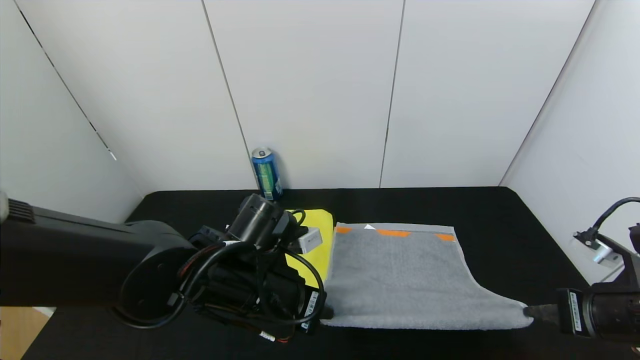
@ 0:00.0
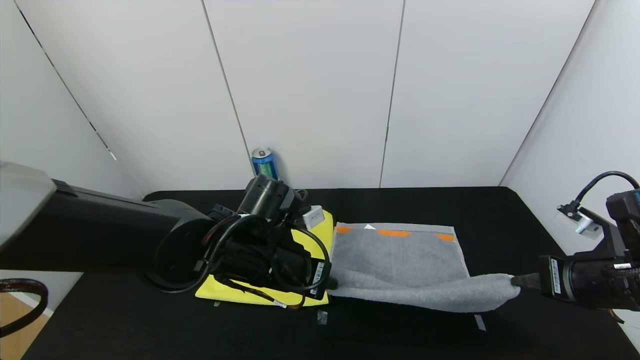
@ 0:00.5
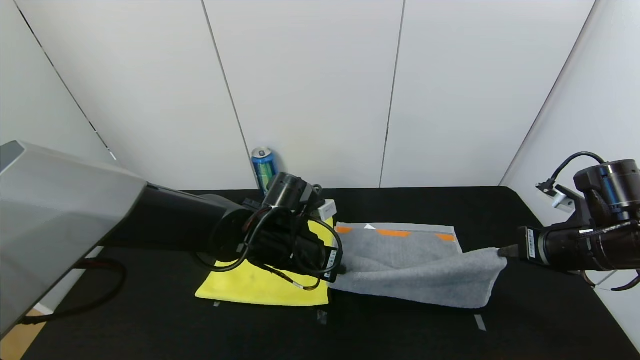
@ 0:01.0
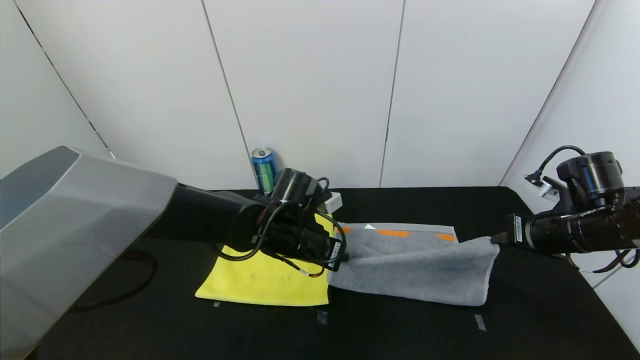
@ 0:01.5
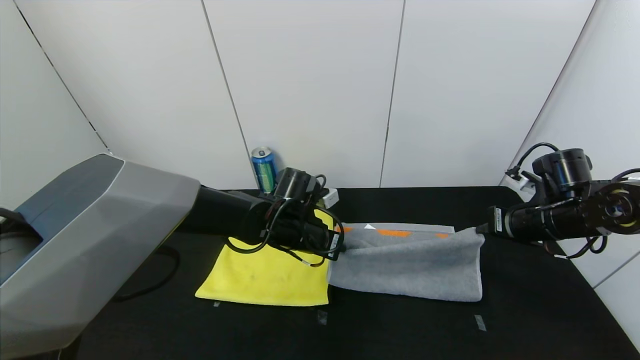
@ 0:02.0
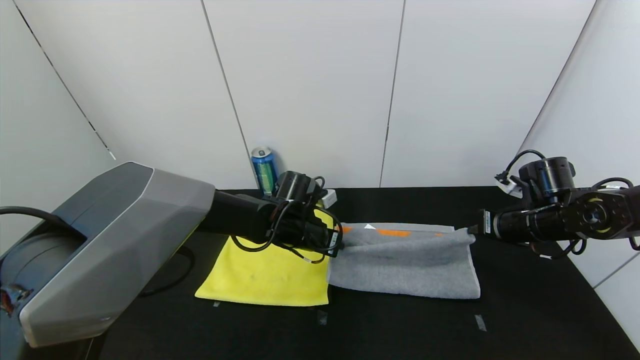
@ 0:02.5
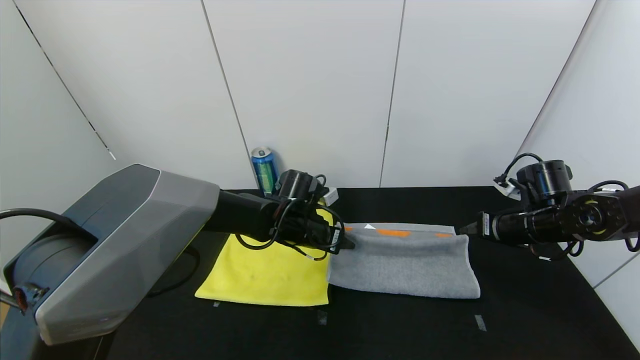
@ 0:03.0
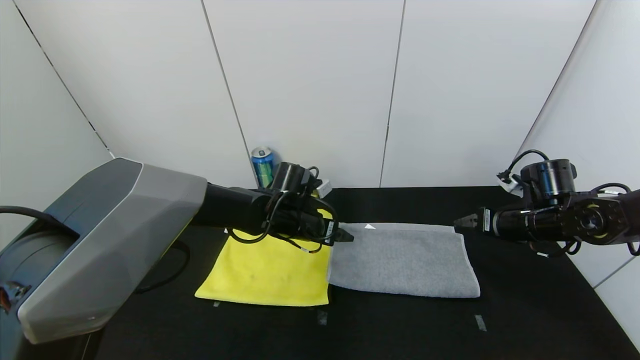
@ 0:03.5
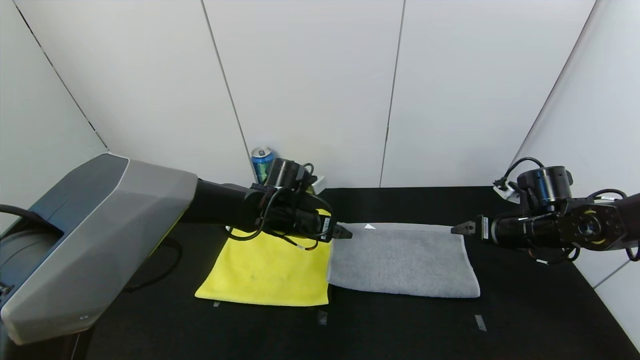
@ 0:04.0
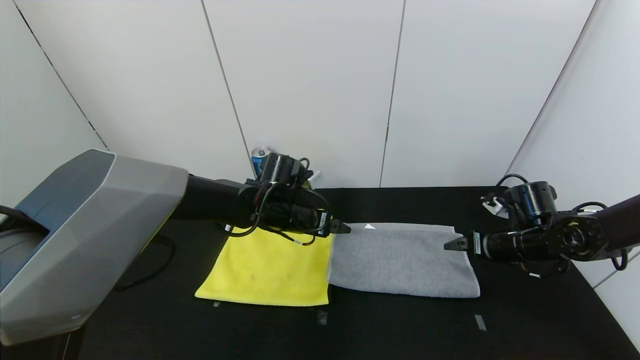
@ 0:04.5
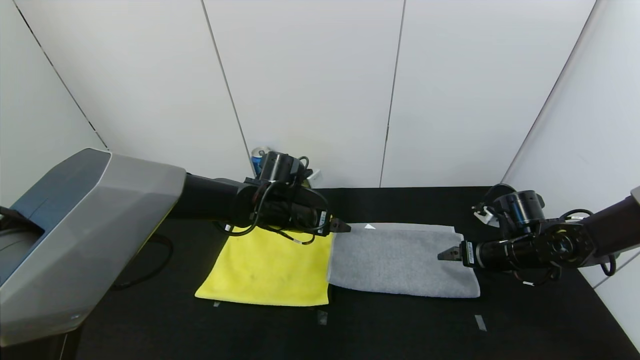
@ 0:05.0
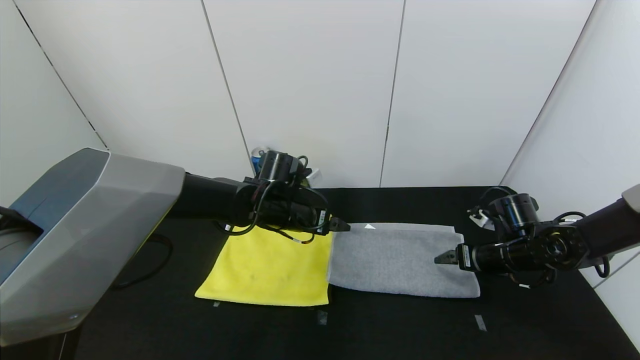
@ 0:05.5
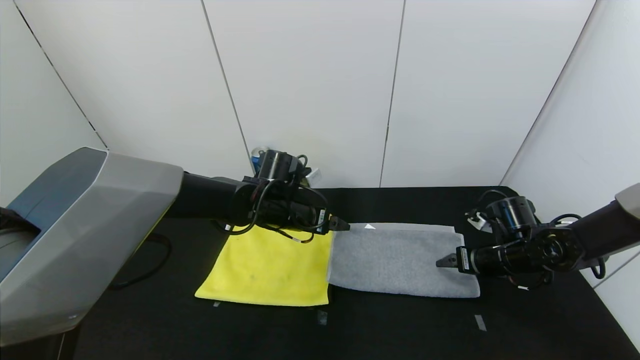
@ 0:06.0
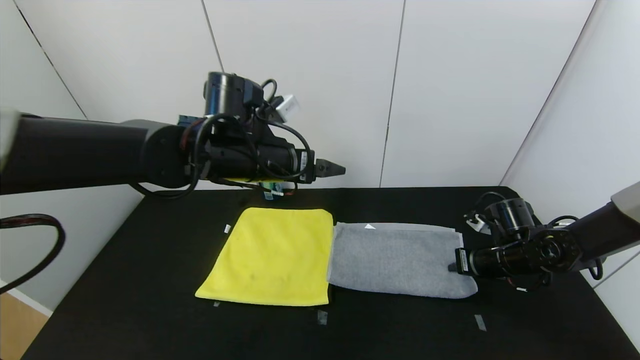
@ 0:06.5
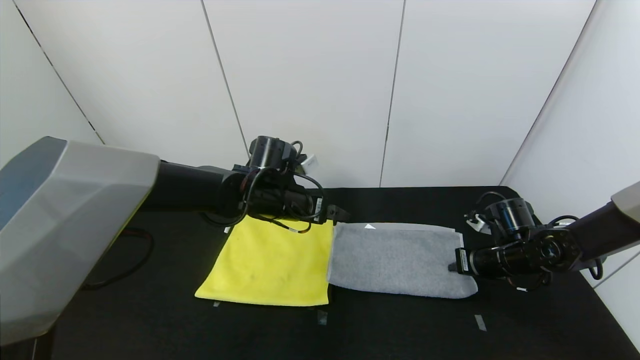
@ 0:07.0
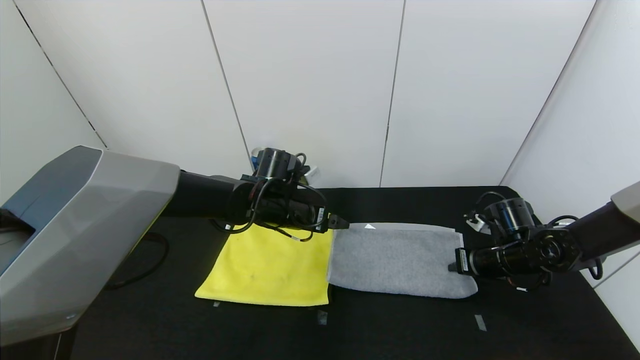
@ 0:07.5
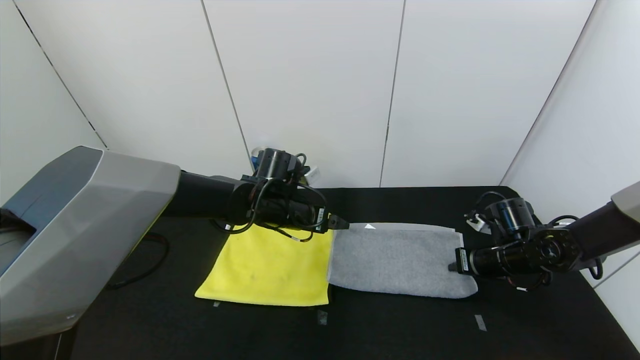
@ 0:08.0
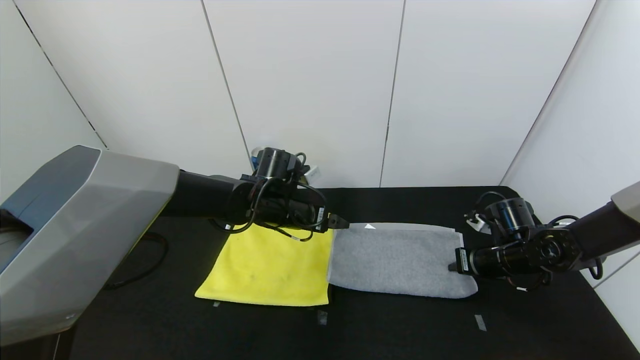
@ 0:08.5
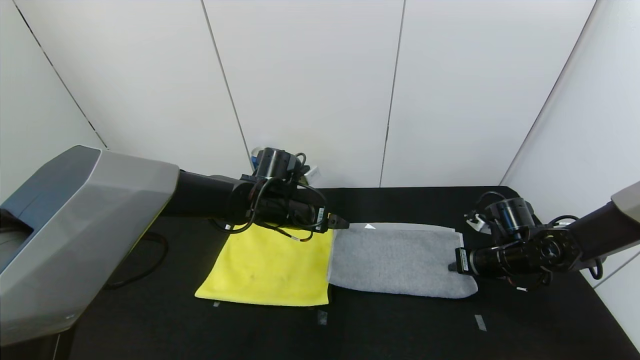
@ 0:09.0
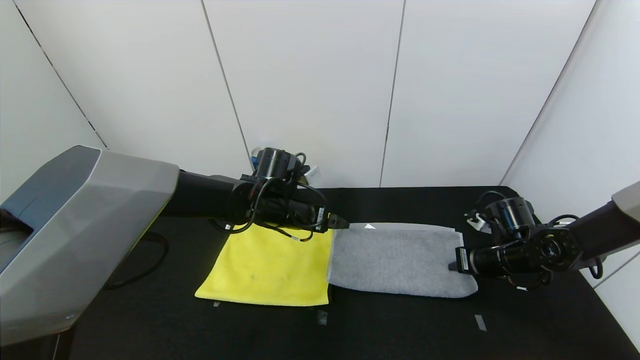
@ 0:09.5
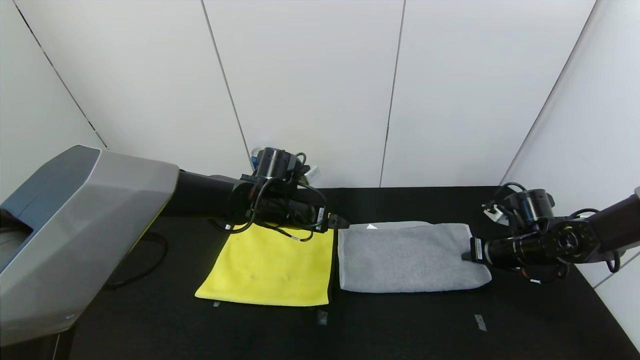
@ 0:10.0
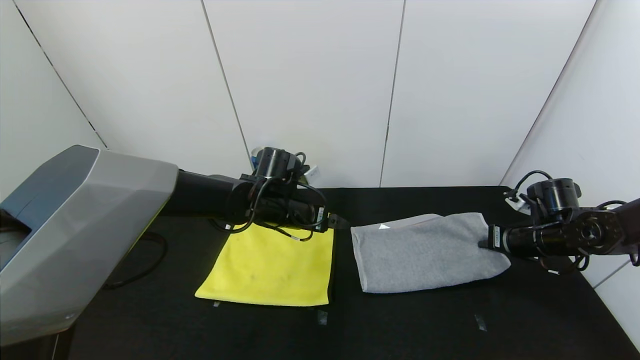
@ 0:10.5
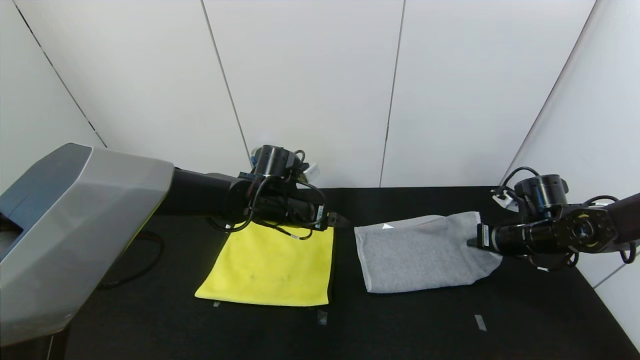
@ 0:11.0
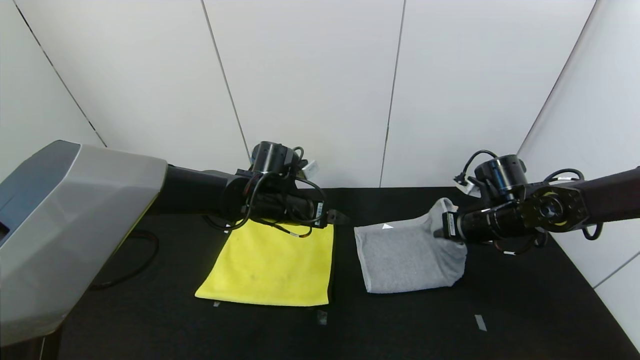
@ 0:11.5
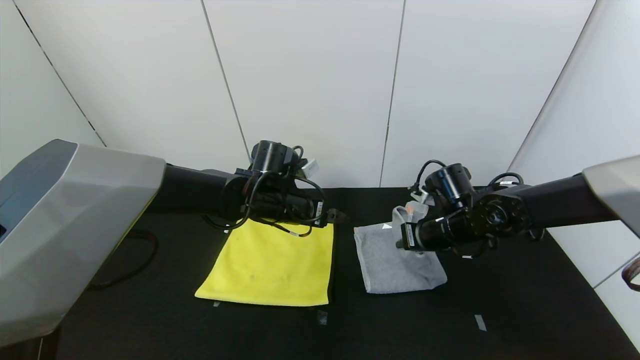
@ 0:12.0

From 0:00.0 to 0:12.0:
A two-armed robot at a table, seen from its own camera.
Task of the whole recording: Use the gripper to fold the yellow towel and grey towel in half twice,then put the yellow towel on the grey towel.
Step, from 0:00.0 to 0:03.0: Fold the gray towel upwards with the left gripper.
Step, from 0:00.0 to 0:03.0: Fold the gray towel upwards with the right gripper.
From 0:00.0 to 0:02.0: Both grippers travel together forward, roughly 15 cm.
From 0:02.0 to 0:04.0: The left gripper opens its fingers, while the right gripper opens up.
From 0:04.0 to 0:06.0: The right gripper moves downward, roughly 5 cm.
From 0:06.0 to 0:08.0: The right gripper closes; the left gripper reaches some 10 cm upward, then returns.
From 0:08.0 to 0:10.0: The grippers make only small movements.
From 0:10.0 to 0:12.0: The right gripper heads to the left, covering some 15 cm.

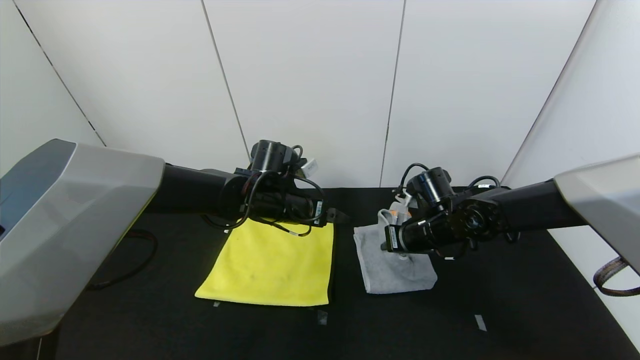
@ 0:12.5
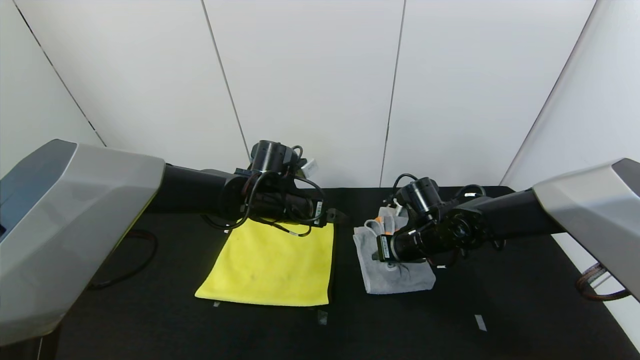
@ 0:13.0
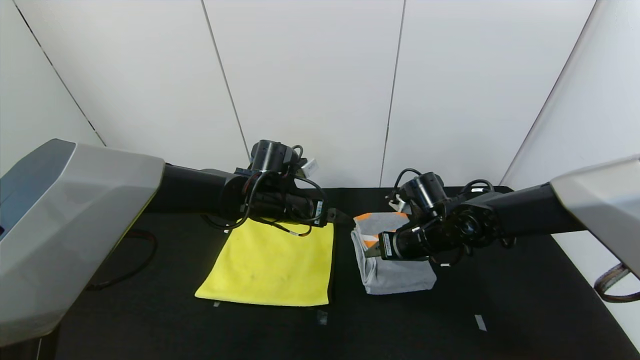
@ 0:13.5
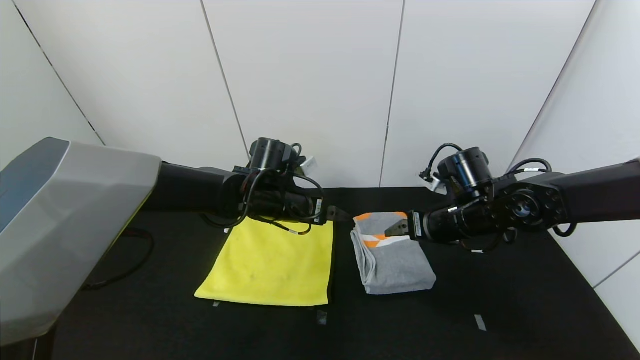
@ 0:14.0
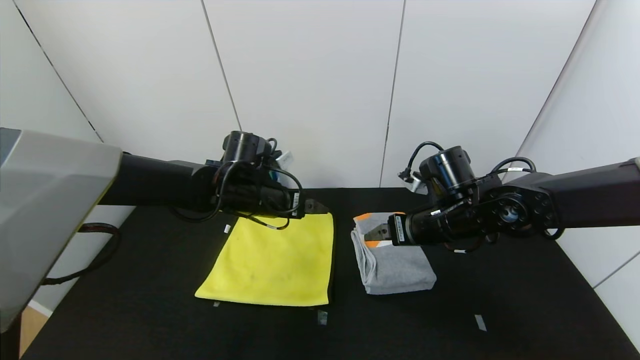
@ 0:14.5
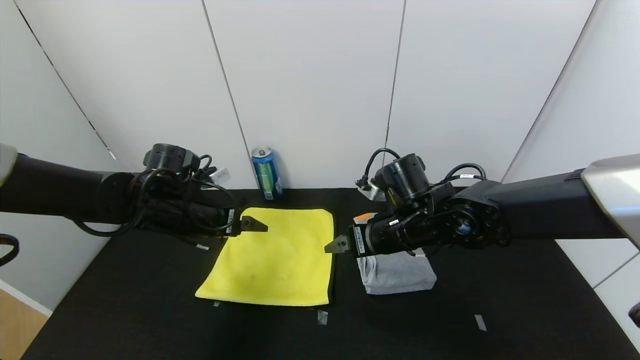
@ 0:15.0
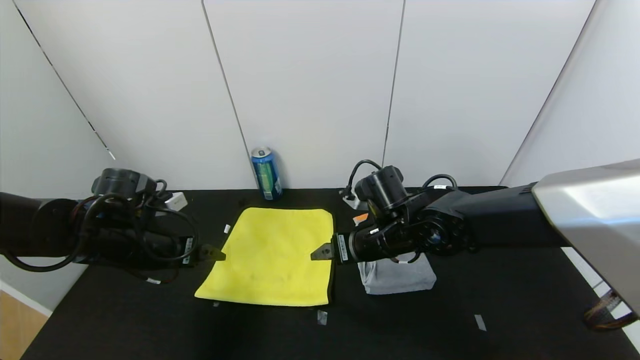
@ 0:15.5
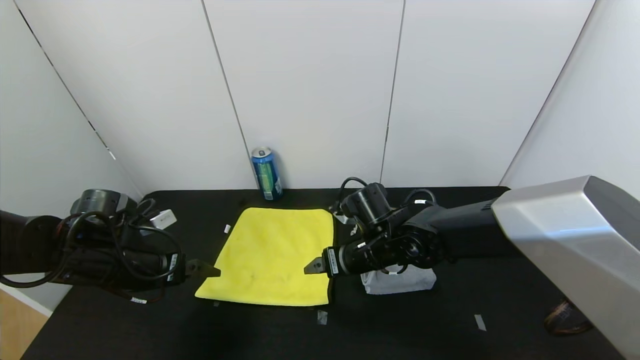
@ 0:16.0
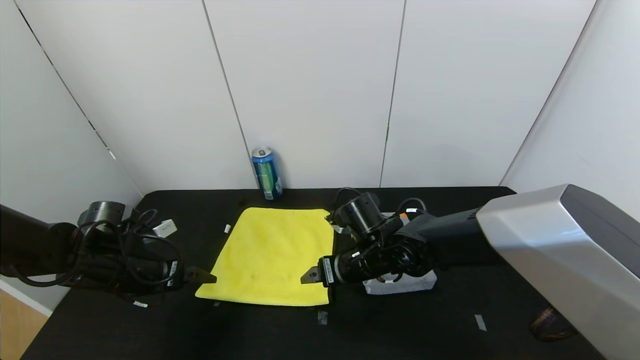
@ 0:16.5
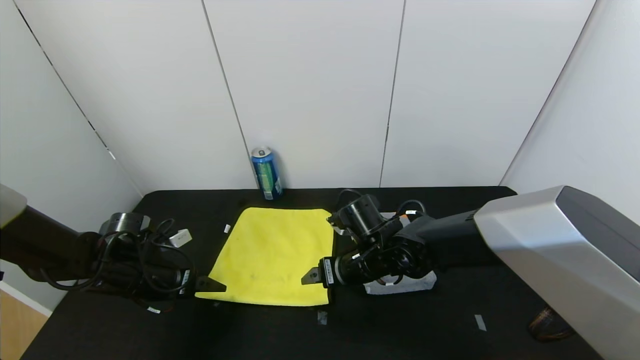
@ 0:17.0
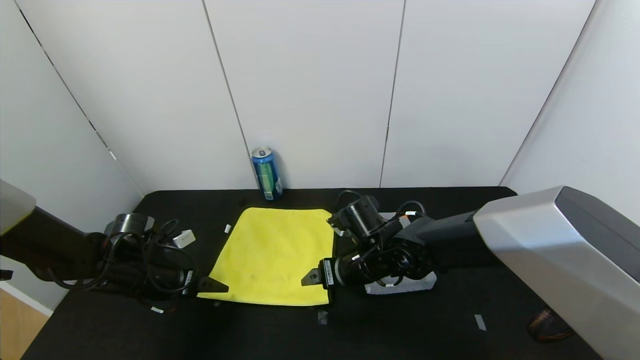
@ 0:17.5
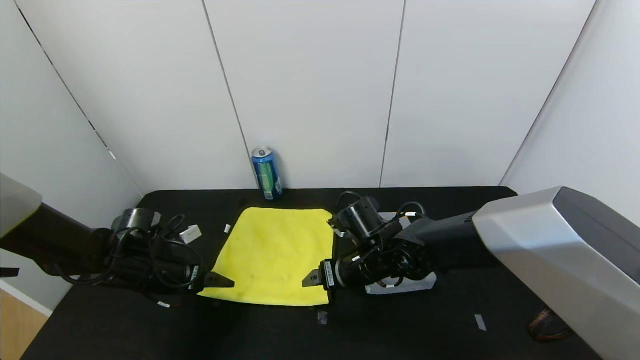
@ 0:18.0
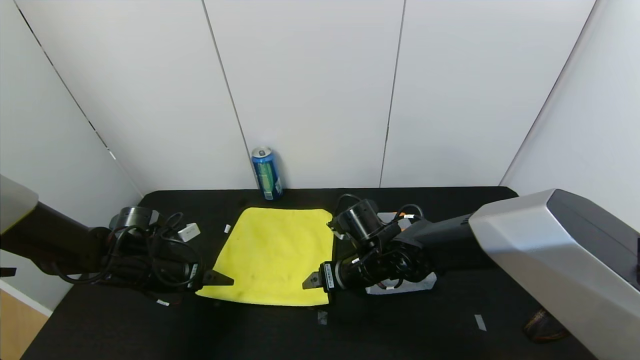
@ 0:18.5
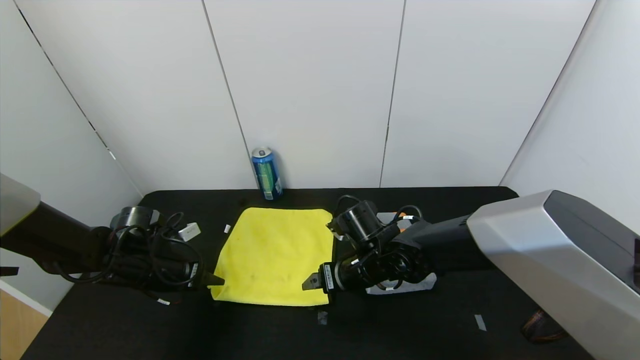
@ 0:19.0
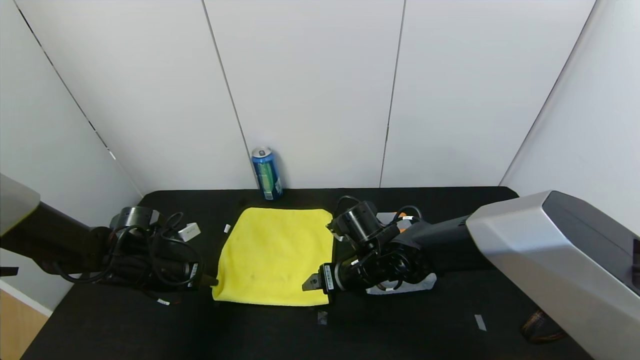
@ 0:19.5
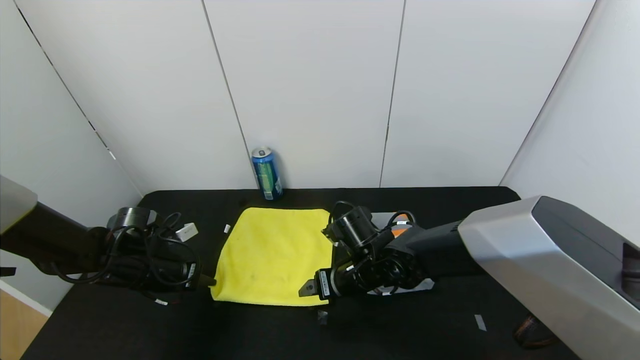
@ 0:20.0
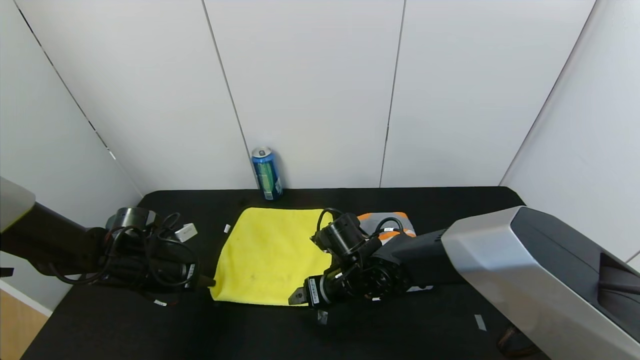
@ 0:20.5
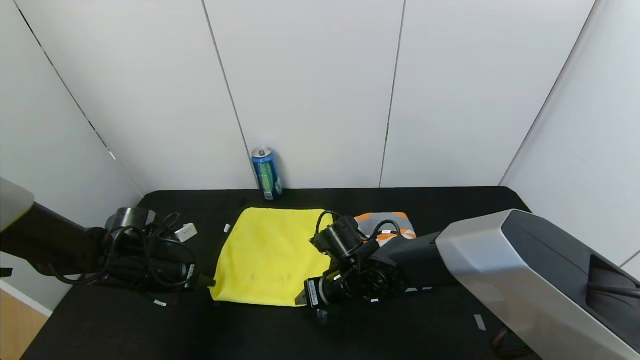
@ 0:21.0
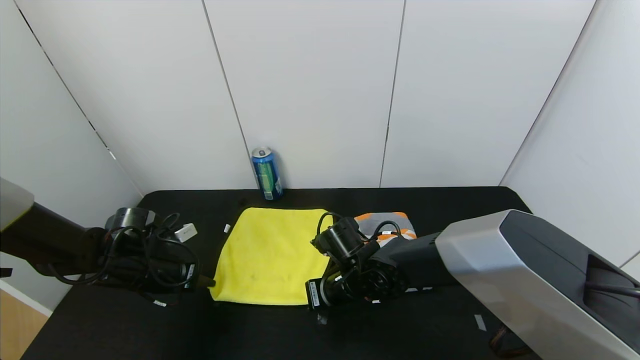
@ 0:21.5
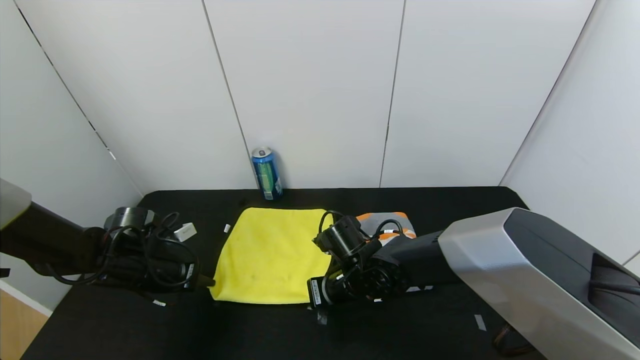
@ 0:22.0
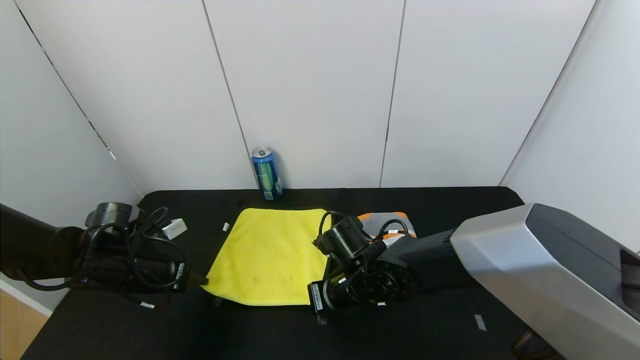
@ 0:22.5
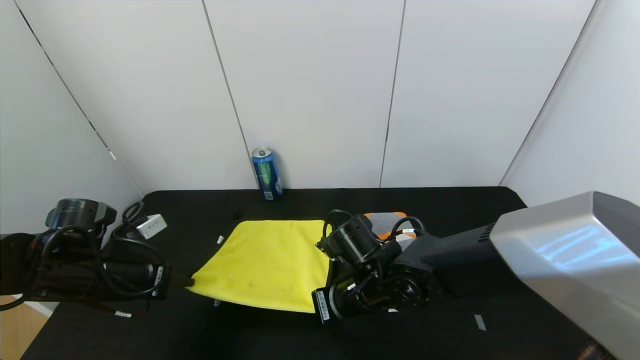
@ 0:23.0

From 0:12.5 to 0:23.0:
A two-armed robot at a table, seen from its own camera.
Task of the whole recording: Use the gripper to fold the yellow towel and grey towel in half twice,then put the yellow towel on the grey towel.
From 0:12.5 to 0:14.5: The right gripper goes about 5 cm upward, and opens up.
From 0:14.5 to 0:16.5: The left gripper goes roughly 20 cm to the left, backward and downward. Meanwhile the right gripper is displaced to the left and downward by roughly 15 cm.
From 0:16.5 to 0:19.0: The left gripper closes its fingers.
From 0:19.0 to 0:21.0: The left gripper closes. Meanwhile the right gripper closes up.
From 0:21.0 to 0:23.0: The left gripper shifts about 10 cm backward and upward. The right gripper changes place by some 5 cm, and closes up.
